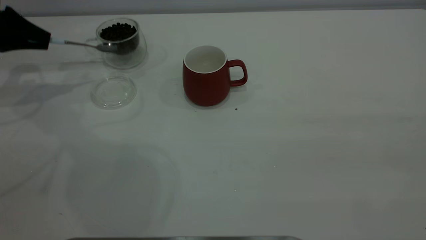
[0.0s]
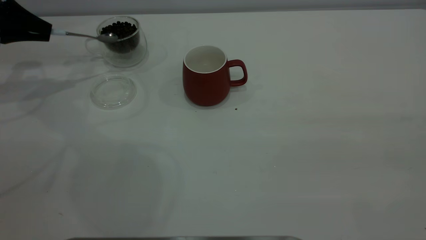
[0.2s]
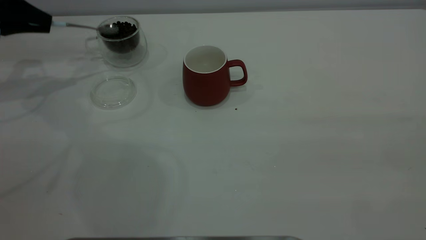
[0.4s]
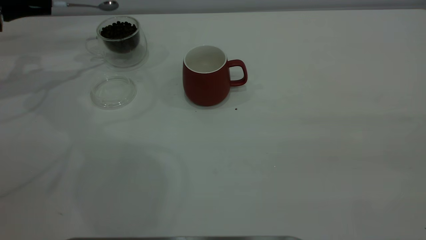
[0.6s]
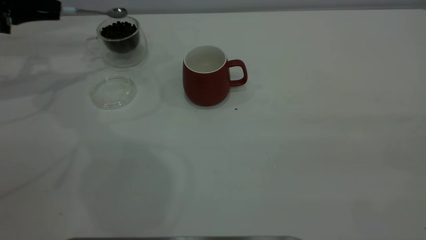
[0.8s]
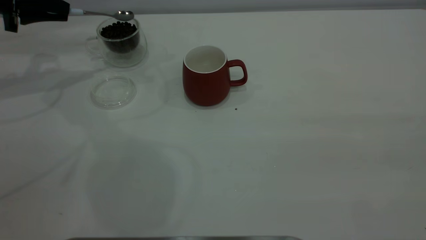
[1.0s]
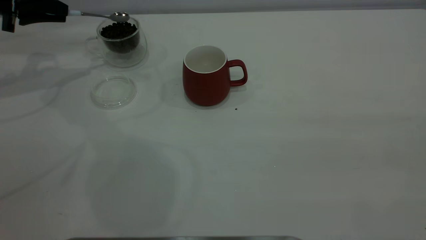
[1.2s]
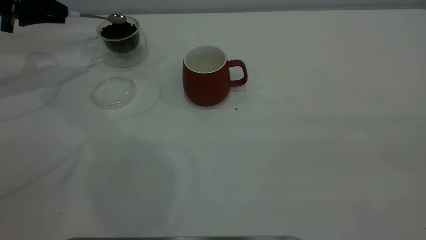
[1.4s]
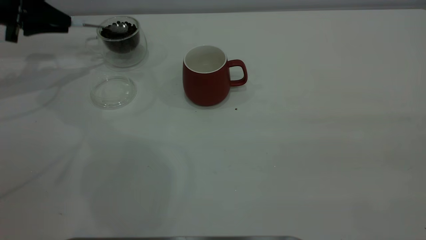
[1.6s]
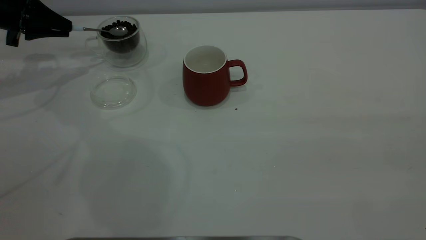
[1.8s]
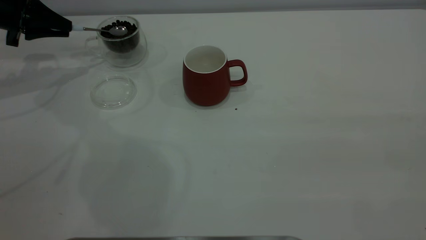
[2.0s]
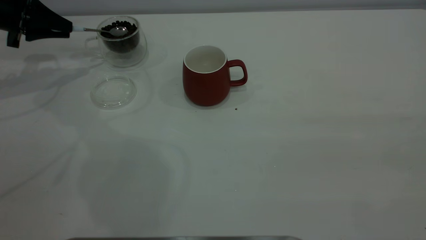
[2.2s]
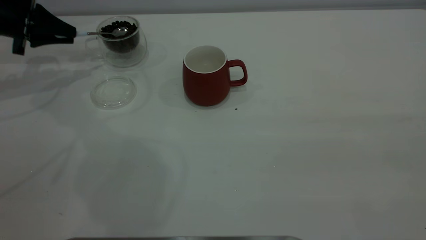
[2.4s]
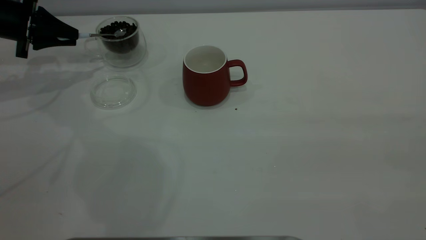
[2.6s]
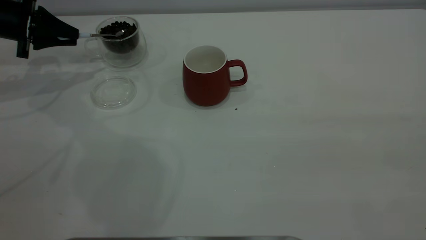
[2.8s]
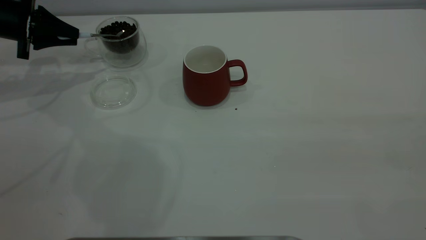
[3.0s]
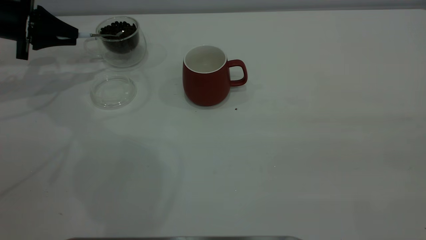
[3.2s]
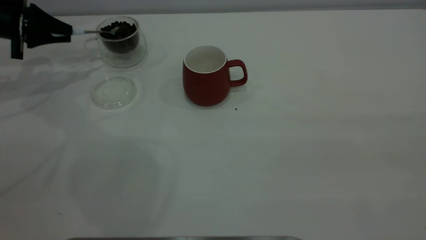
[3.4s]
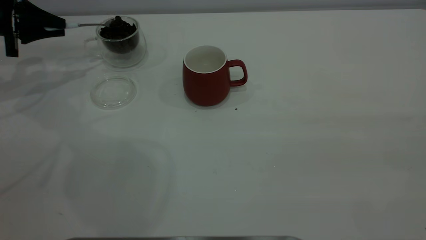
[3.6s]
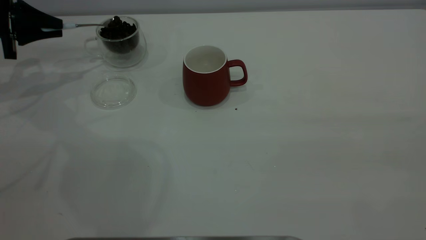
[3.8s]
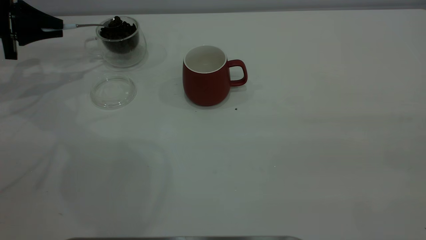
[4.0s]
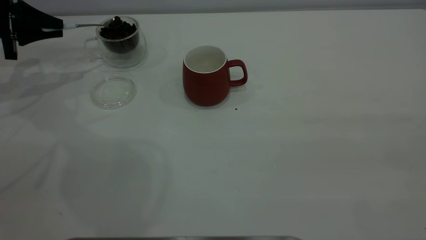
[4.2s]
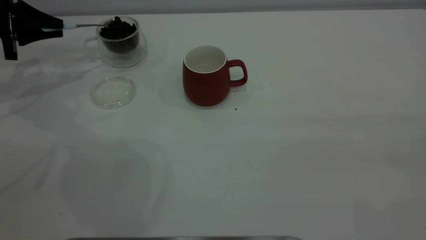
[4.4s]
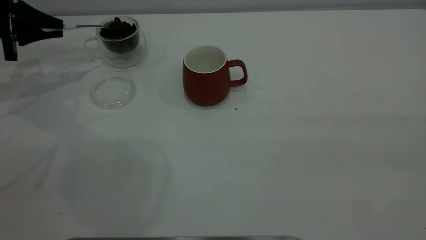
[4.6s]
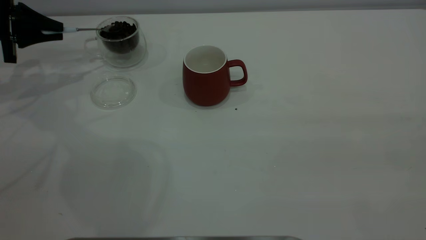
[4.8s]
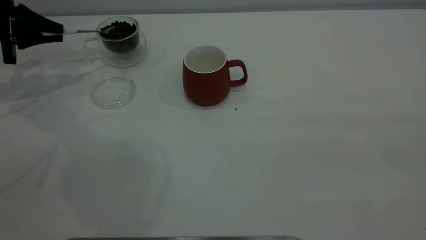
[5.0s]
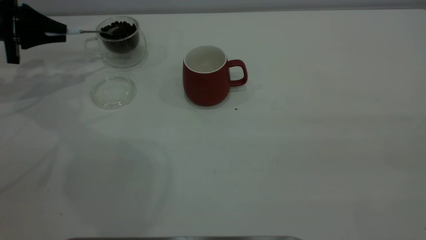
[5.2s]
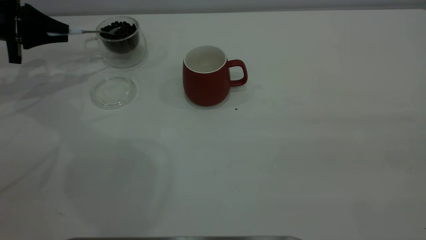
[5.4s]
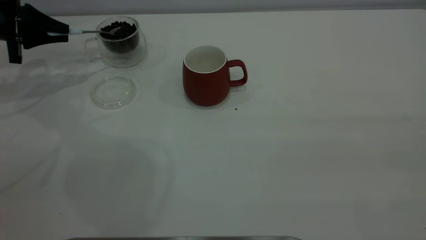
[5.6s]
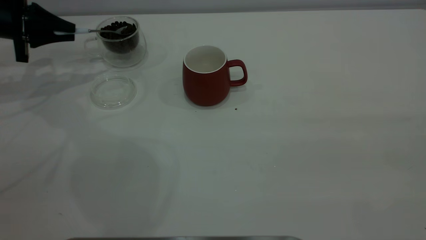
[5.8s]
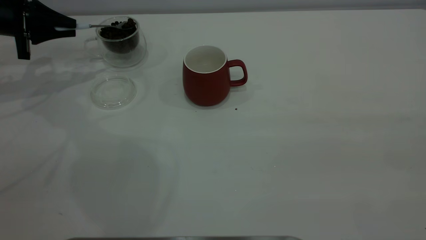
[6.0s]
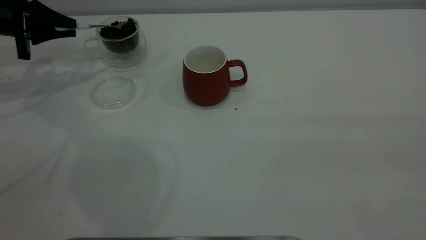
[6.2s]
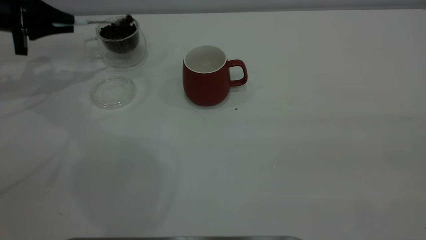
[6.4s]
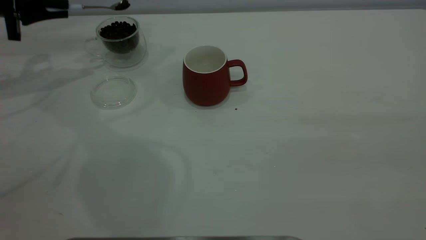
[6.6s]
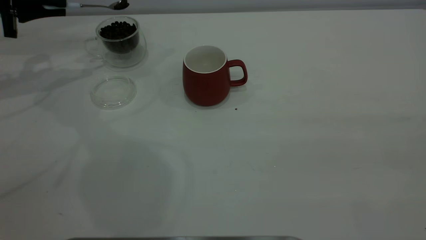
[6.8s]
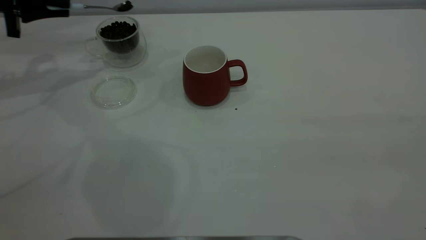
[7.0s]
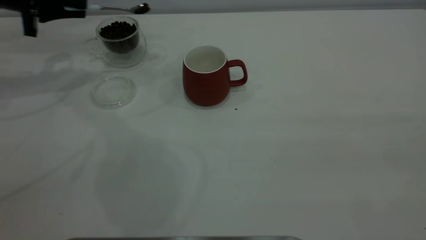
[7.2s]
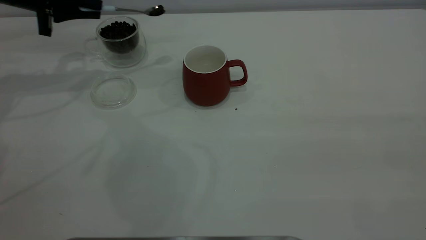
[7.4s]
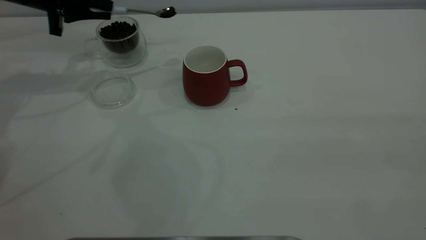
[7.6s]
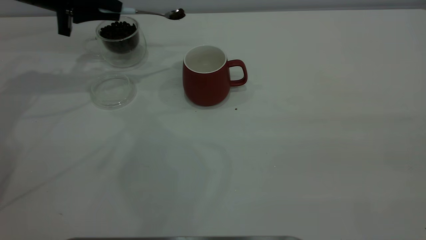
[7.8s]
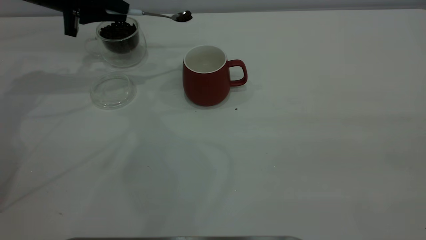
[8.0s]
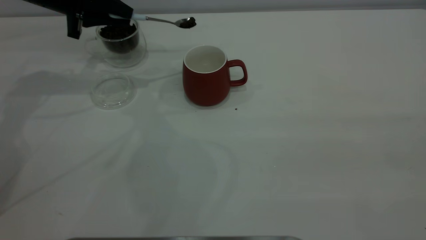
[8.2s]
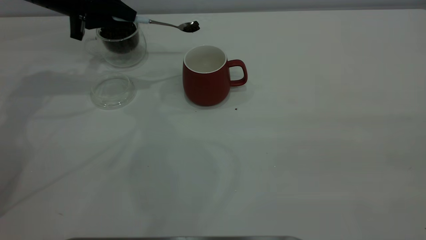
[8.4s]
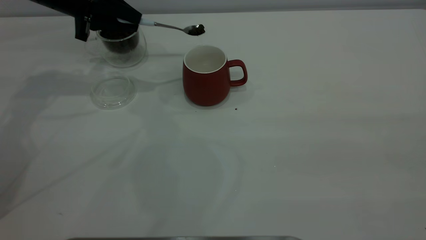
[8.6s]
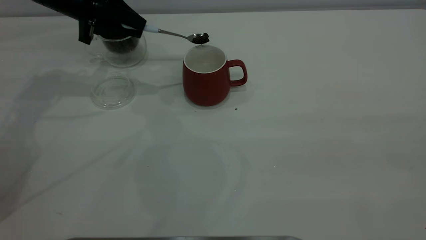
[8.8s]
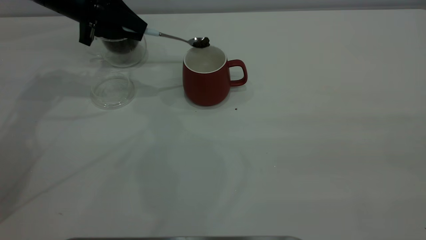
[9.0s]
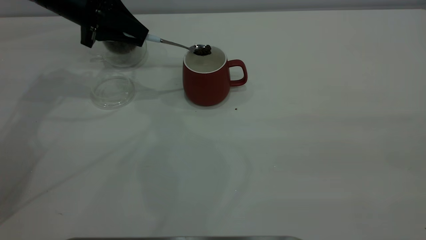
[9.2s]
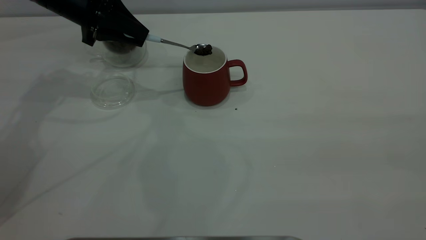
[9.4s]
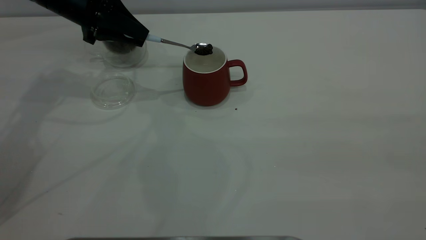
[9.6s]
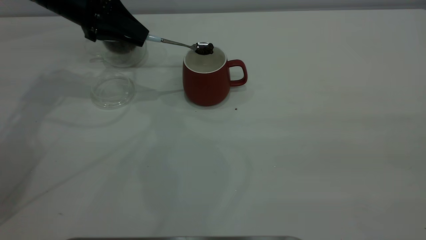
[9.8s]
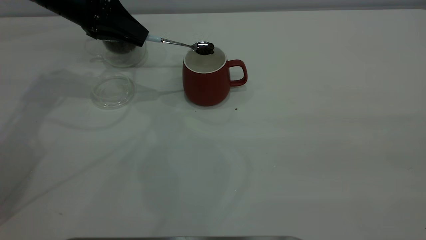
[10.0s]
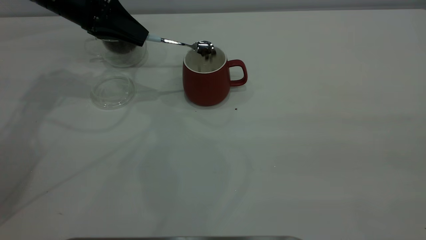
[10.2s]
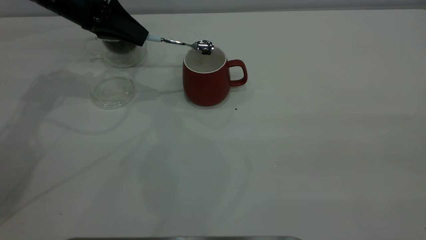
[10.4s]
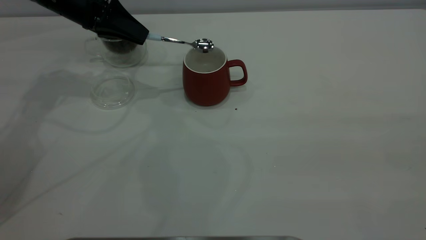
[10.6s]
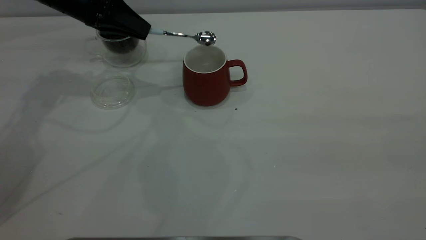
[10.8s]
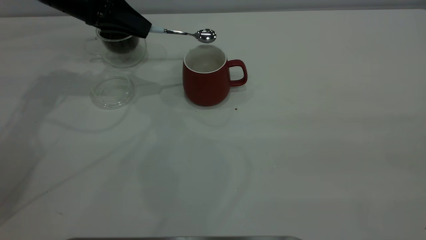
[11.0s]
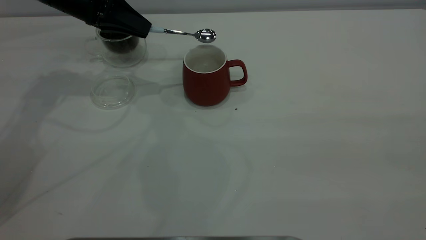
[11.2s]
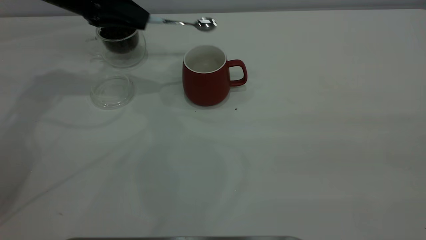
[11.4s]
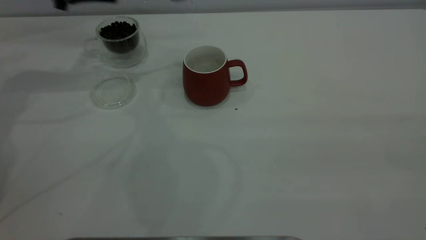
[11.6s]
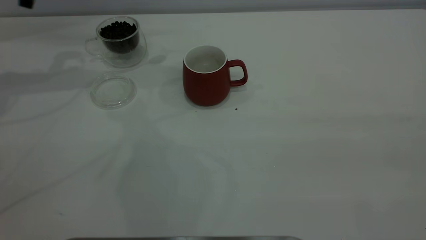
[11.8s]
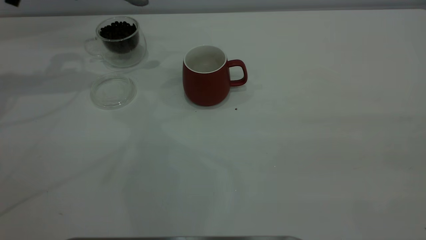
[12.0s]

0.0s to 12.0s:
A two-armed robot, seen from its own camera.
Task of the whole recording: the right gripper place the red cup in the center of the table, the left gripper take the blue spoon from the cup lid and scoop out the coffee beans from the coffee cup and put them into the red cup, the left gripper put the spoon back into the cup lid.
Step, 0.0s to 11.2s: Scoop a spoonful of beans into the cup.
0.0s to 6.0s: The grippers make only small movements.
6.0s to 7.6s: The left gripper shifts some 10 cm to the right.
7.6s to 9.0s: The left gripper shifts roughly 5 cm to the right.
10.4s to 12.0s: The left gripper moves to the left and upward, about 15 cm.

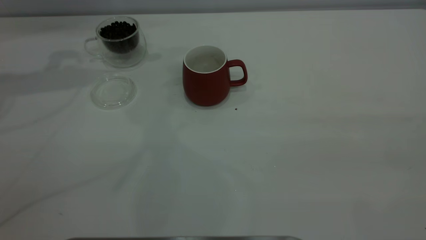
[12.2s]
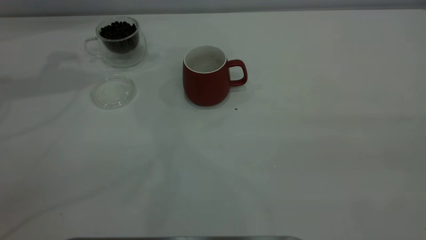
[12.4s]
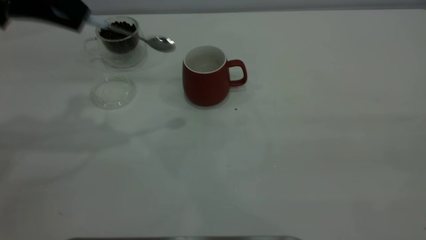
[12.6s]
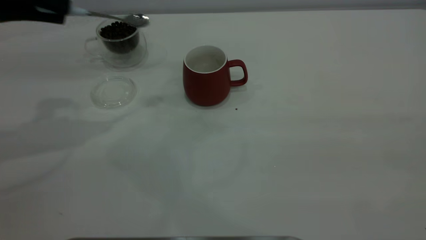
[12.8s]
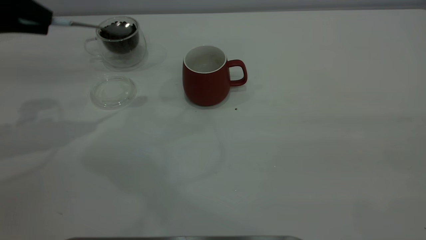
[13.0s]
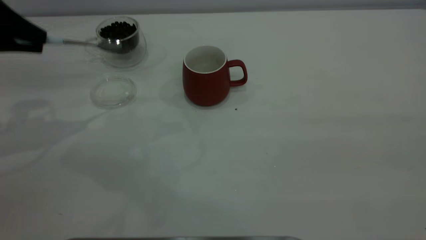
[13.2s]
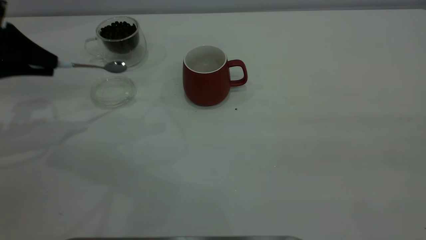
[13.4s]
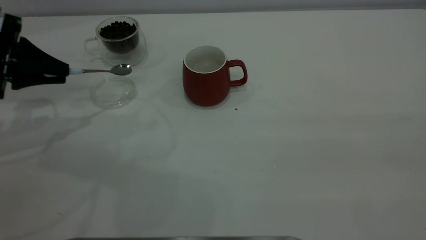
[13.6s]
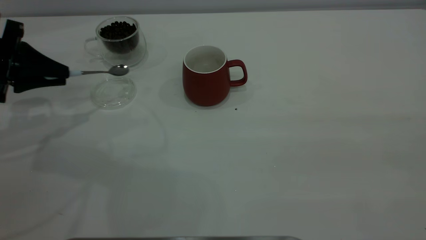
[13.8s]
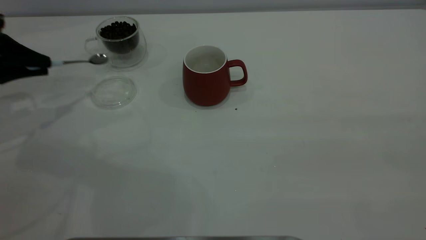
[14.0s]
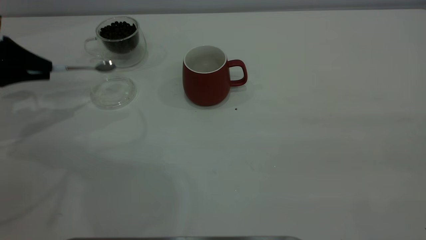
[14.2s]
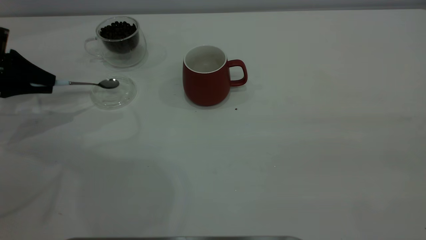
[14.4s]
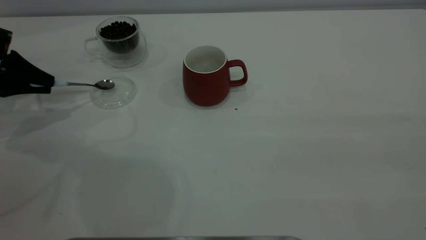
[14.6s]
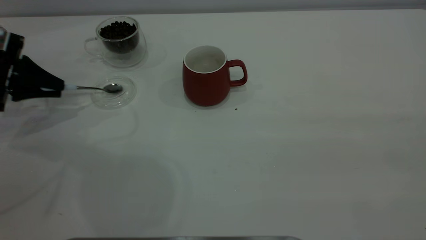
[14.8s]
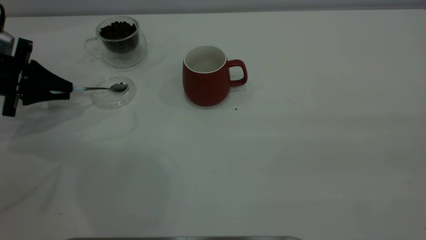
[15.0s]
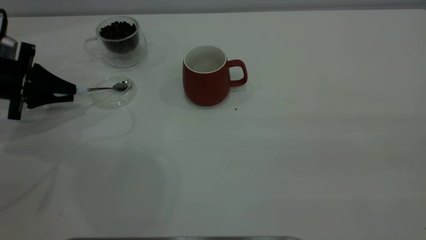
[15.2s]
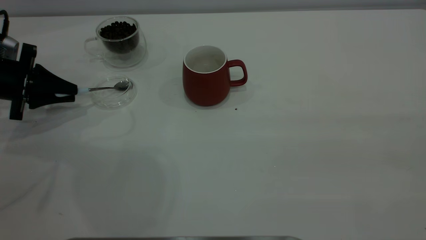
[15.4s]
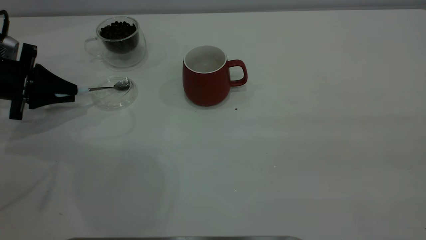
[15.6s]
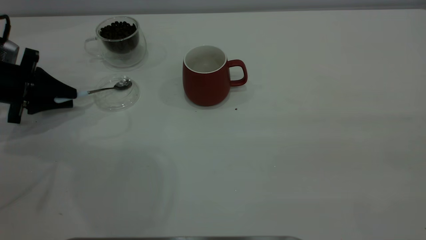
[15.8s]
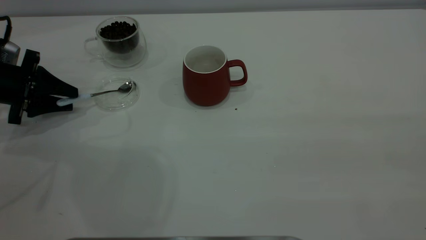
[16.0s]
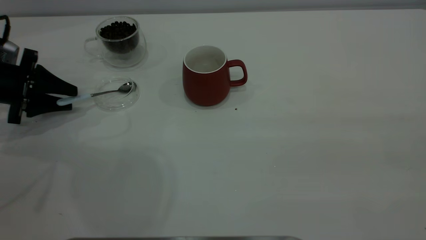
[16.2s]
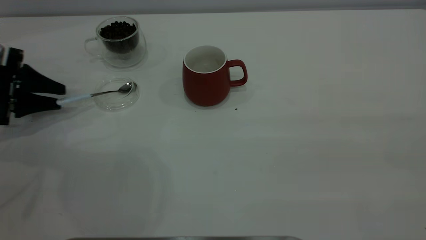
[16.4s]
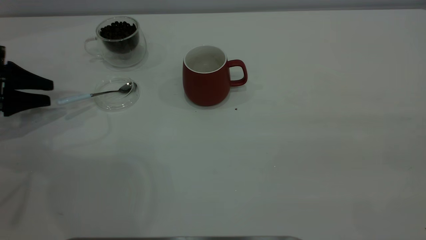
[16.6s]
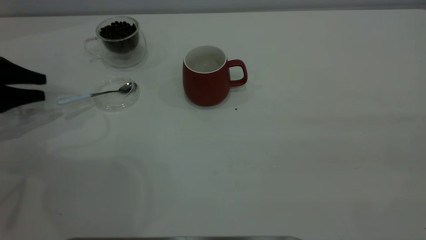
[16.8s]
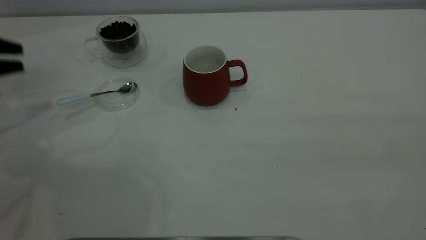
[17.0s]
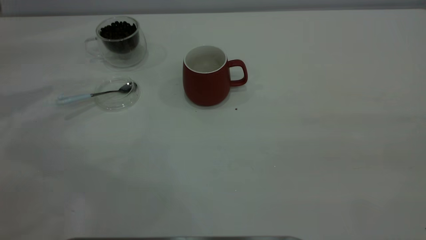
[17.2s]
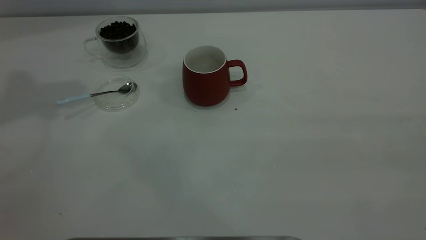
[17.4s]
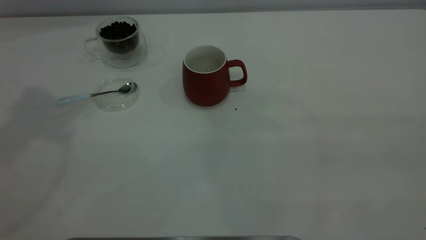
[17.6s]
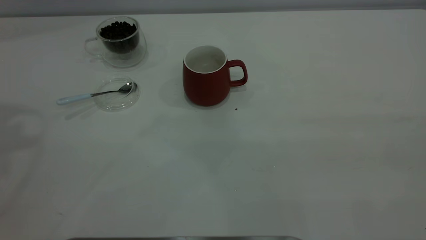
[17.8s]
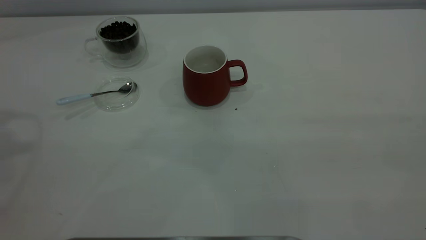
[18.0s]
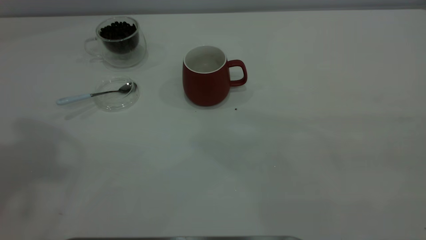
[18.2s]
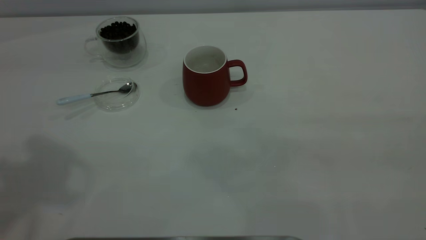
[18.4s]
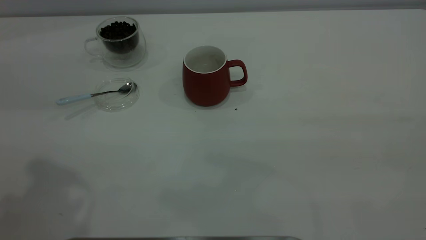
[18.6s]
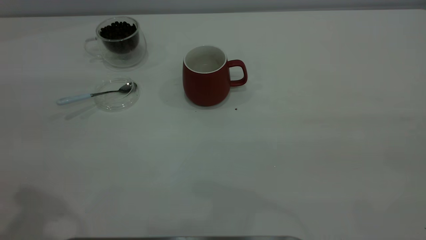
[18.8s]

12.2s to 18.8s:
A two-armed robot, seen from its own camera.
Task of the whole recording: the right gripper place the red cup in the center of the table, the left gripper take the blue spoon from the cup lid and scoop out the coffee beans from the coffee cup and put them into the red cup, the left gripper put the spoon back into the cup lid.
Step, 12.2s to 16.8s: Place the spoon back in its original place.
12.2s to 13.8s: The left gripper shifts some 20 cm downward and backward.
13.8s to 15.4s: The left gripper travels downward by approximately 5 cm.
15.4s to 17.2s: The left gripper shifts some 15 cm upward, and opens its fingers.
